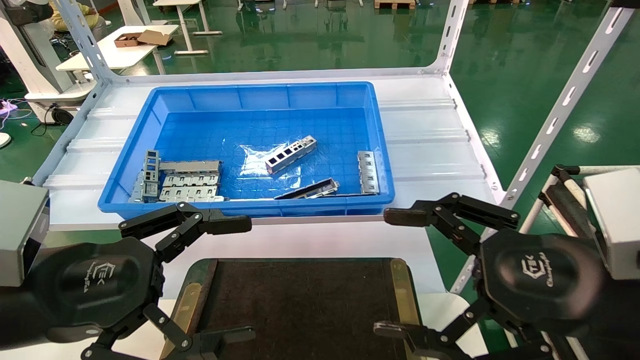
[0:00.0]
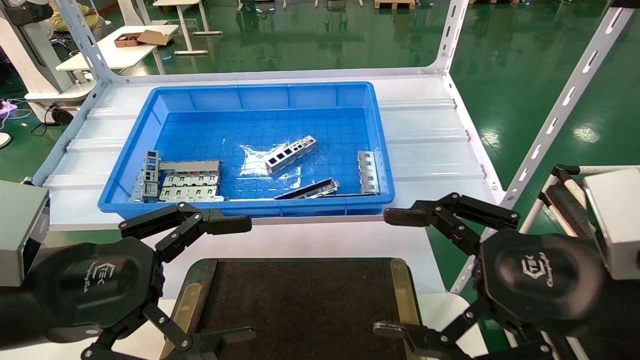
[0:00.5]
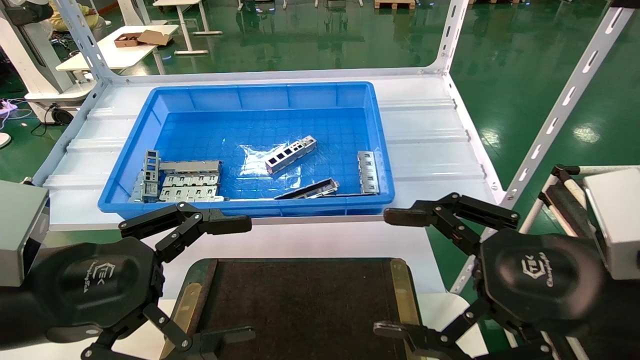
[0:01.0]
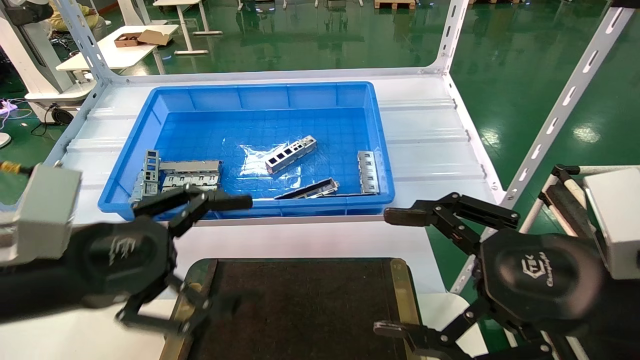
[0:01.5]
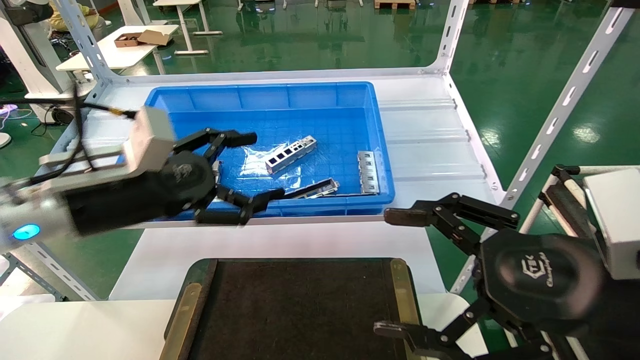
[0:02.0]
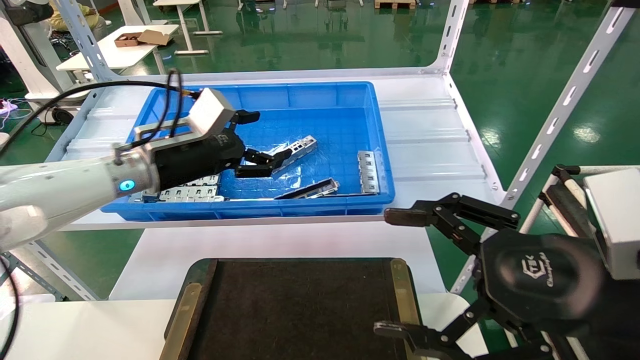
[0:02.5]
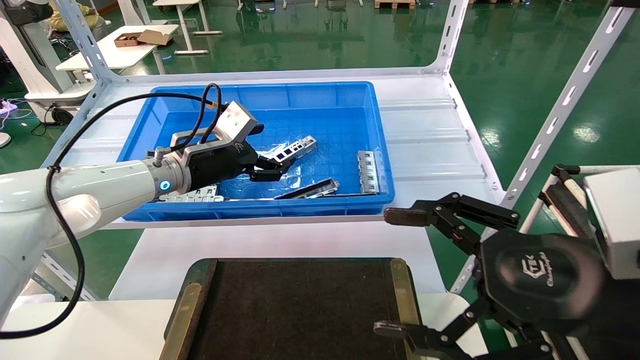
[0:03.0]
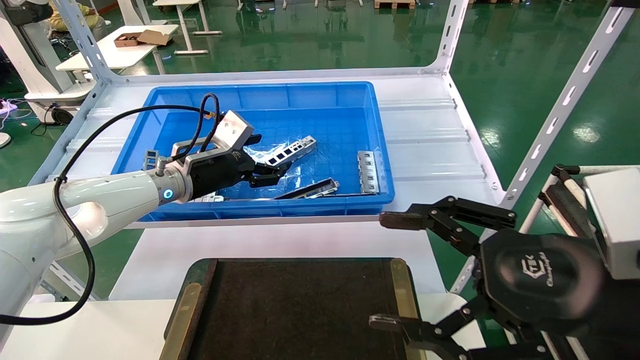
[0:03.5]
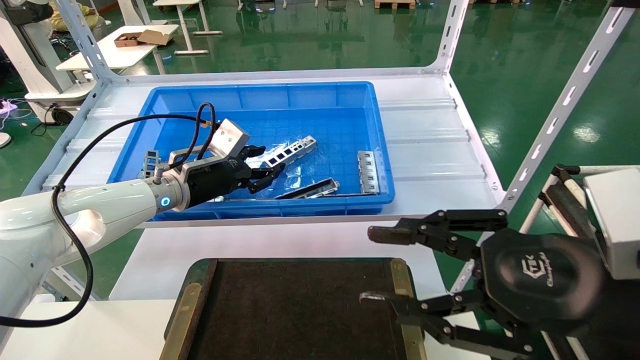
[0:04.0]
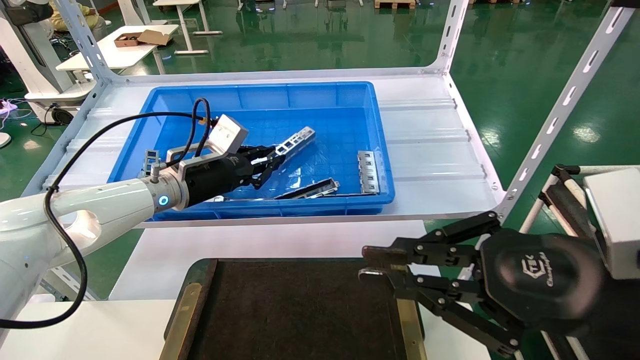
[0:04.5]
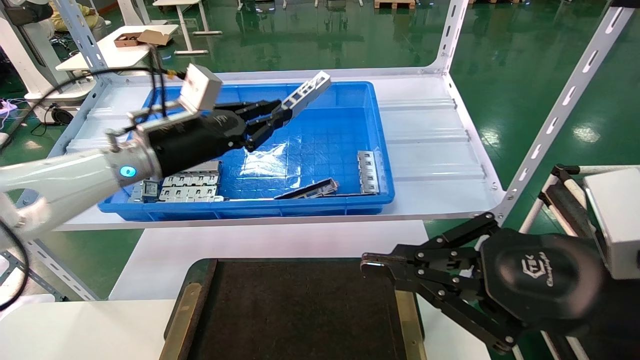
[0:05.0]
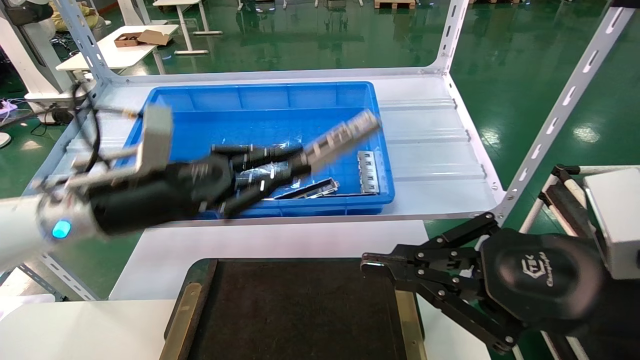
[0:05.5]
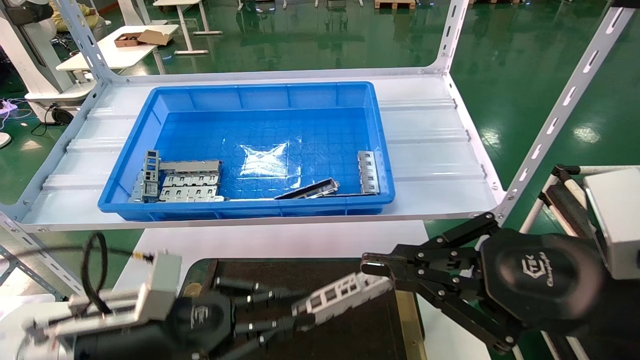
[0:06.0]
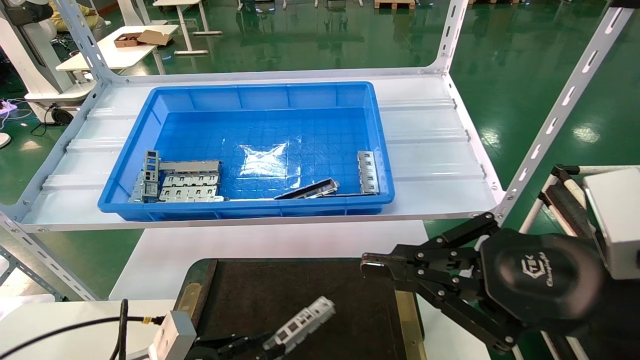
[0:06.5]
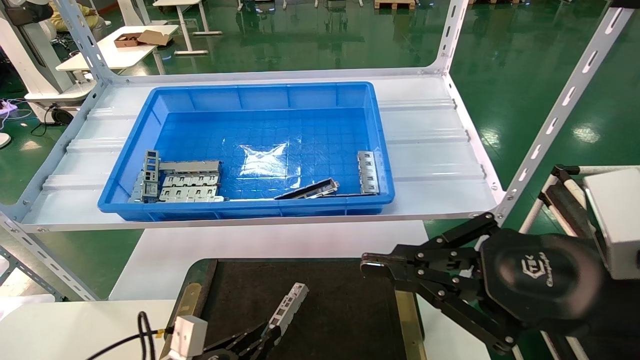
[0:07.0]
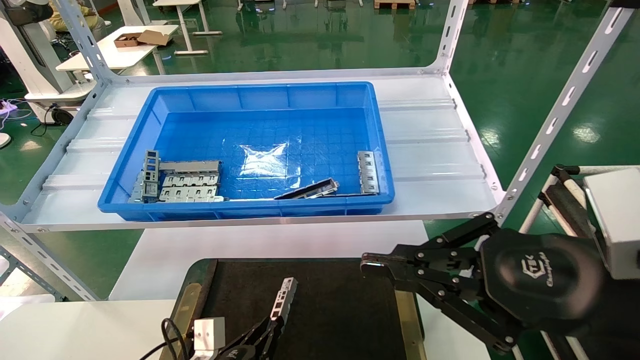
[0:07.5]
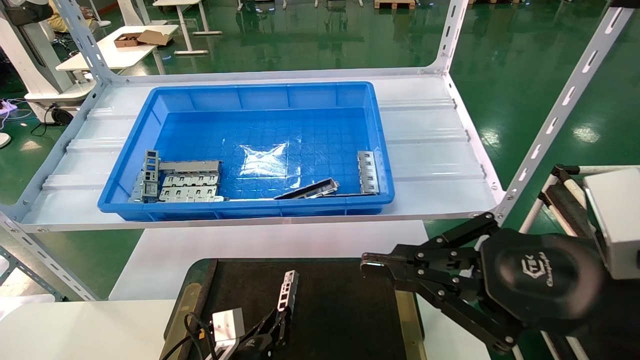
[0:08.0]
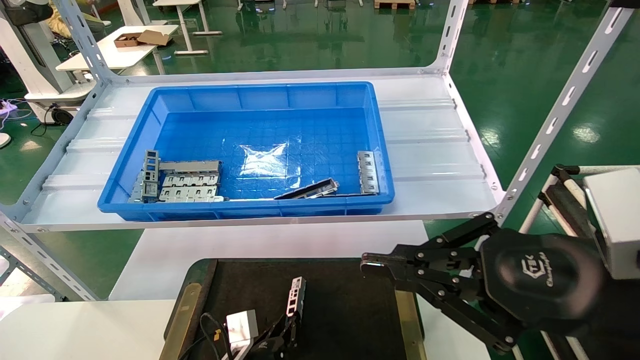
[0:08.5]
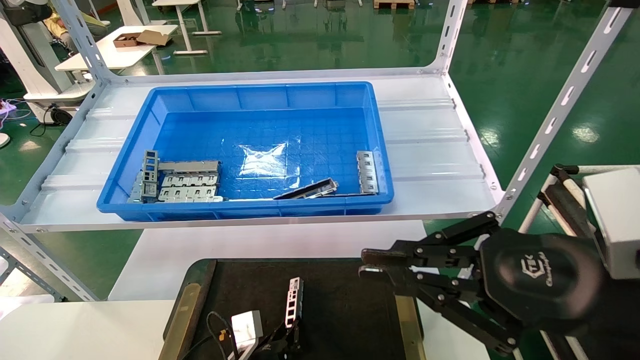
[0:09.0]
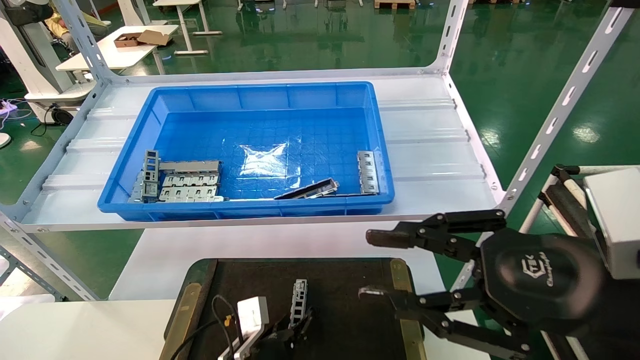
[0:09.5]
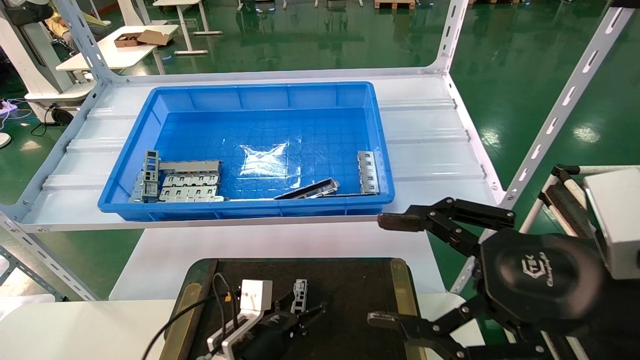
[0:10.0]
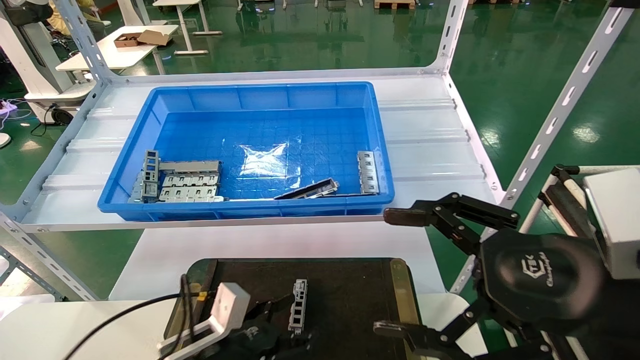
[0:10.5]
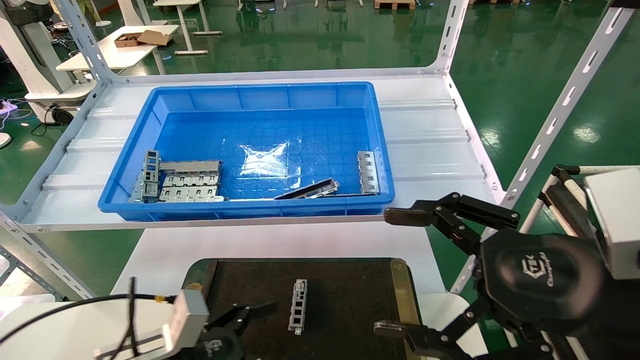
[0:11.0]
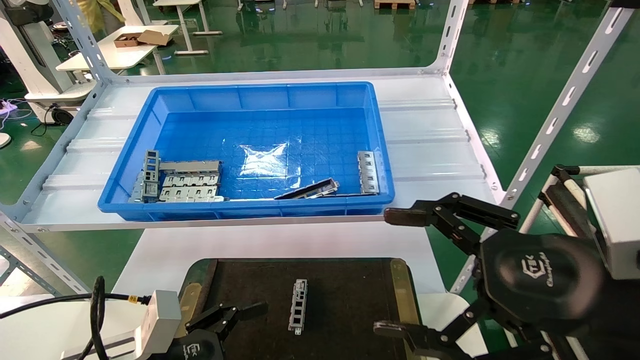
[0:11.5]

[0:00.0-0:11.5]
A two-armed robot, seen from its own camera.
Task of the whole recording: Grasp the part with one hand and place it on the black container.
Step, 0:01.5 to 0:04.5: Pick up the front USB bracket from the feeding area.
Step, 0:05.0 to 0:09.0: Place the front USB bracket into the box.
0:00.0 to 0:02.0: The left gripper travels forward by approximately 15 cm.
0:02.0 to 0:04.0: The right gripper closes. The left gripper is displaced forward by some 15 cm, and closes up.
0:04.0 to 0:06.0: The right gripper closes. Meanwhile the left gripper is displaced backward and downward by about 25 cm, and closes up.
0:06.0 to 0:07.5: The left gripper travels downward by approximately 20 cm.
0:07.5 to 0:09.5: The left gripper goes approximately 10 cm to the right.
0:09.5 to 0:11.5: The right gripper opens, while the left gripper travels to the left, upward and backward by approximately 20 cm, and opens.
